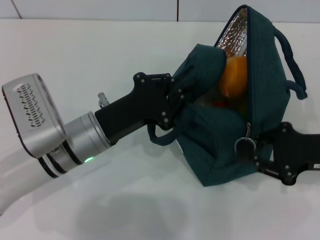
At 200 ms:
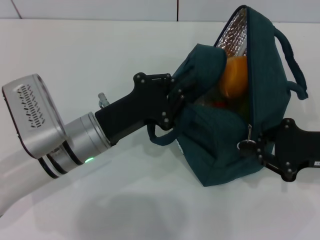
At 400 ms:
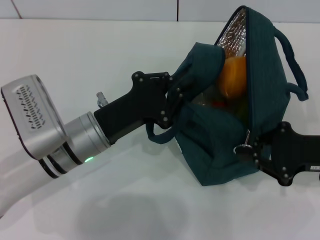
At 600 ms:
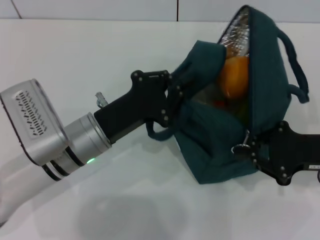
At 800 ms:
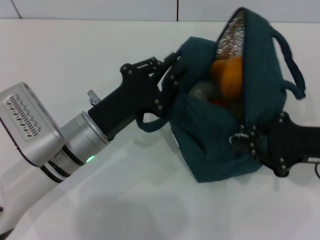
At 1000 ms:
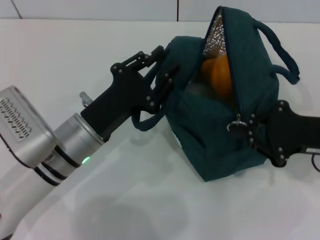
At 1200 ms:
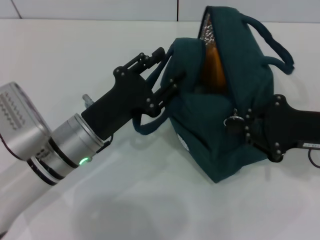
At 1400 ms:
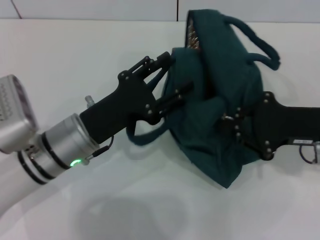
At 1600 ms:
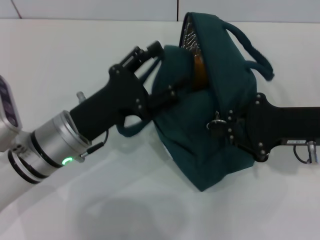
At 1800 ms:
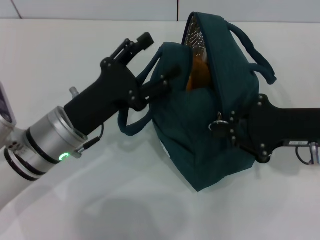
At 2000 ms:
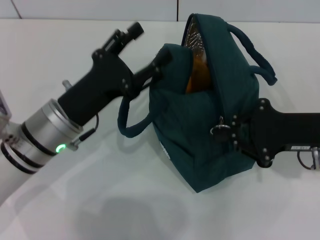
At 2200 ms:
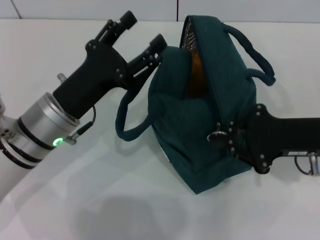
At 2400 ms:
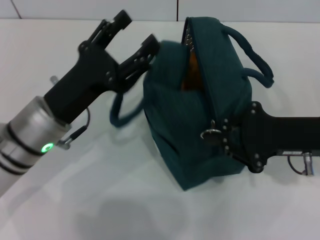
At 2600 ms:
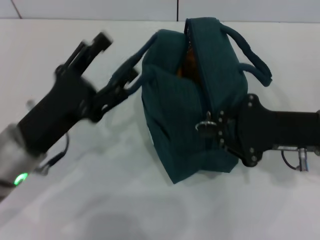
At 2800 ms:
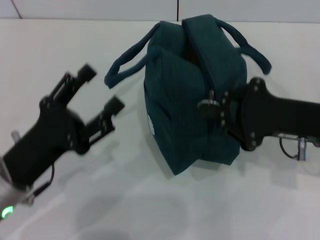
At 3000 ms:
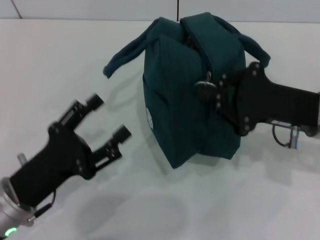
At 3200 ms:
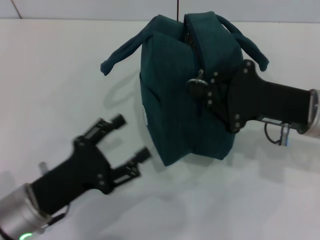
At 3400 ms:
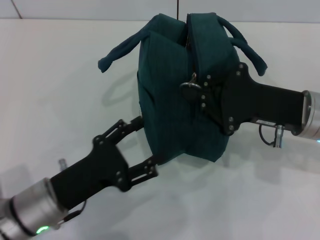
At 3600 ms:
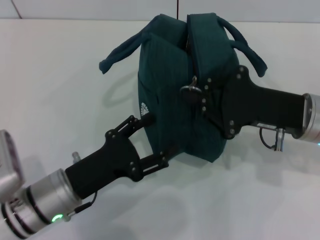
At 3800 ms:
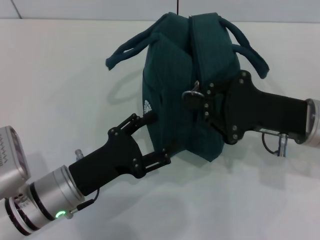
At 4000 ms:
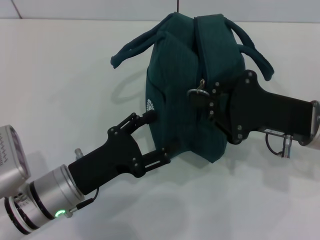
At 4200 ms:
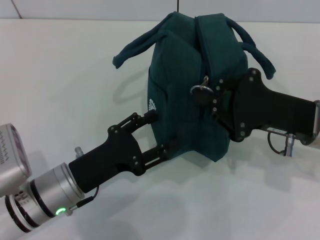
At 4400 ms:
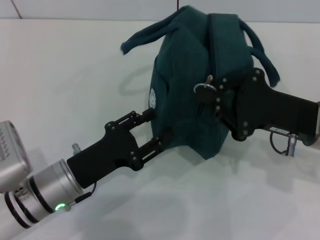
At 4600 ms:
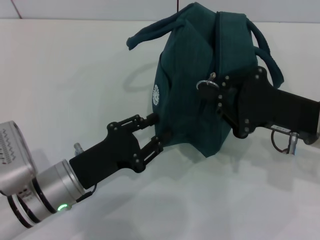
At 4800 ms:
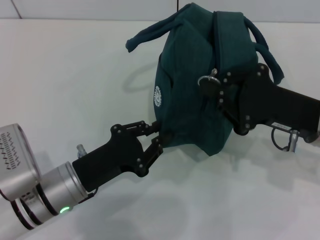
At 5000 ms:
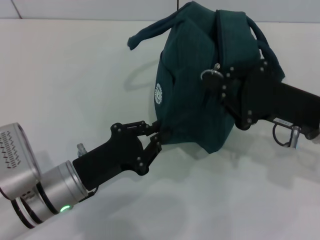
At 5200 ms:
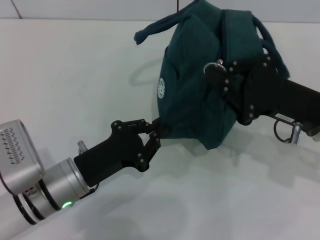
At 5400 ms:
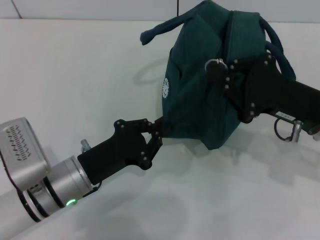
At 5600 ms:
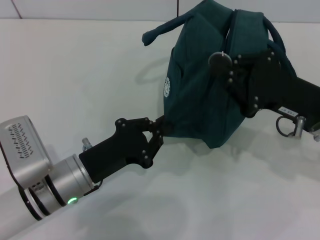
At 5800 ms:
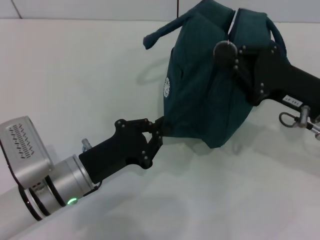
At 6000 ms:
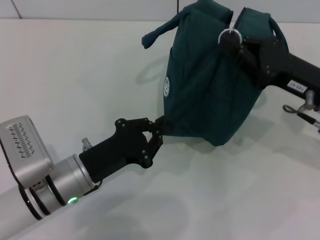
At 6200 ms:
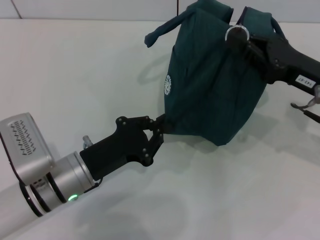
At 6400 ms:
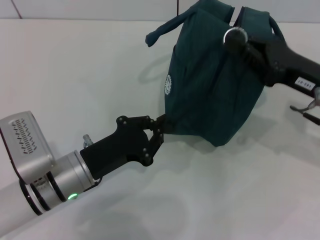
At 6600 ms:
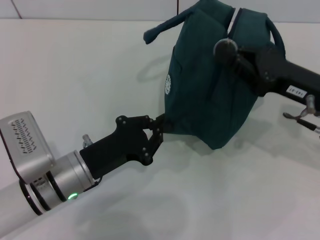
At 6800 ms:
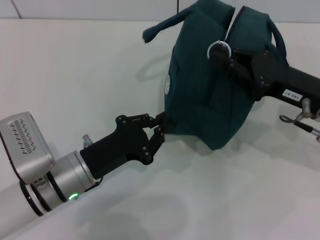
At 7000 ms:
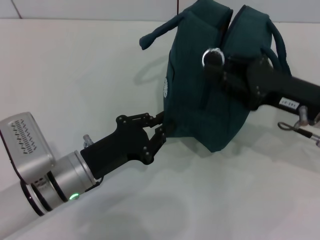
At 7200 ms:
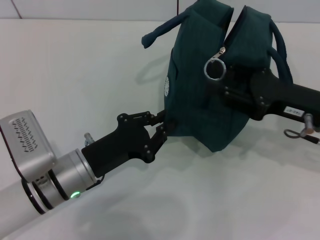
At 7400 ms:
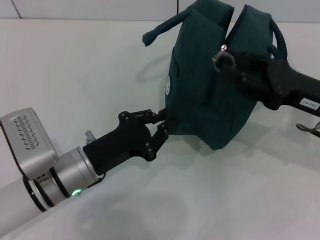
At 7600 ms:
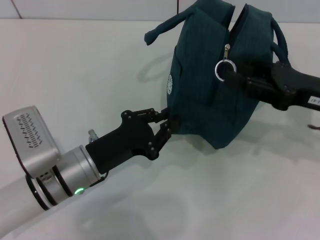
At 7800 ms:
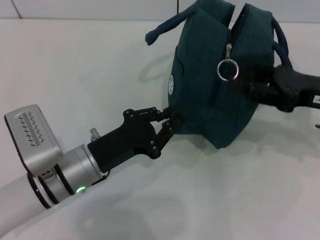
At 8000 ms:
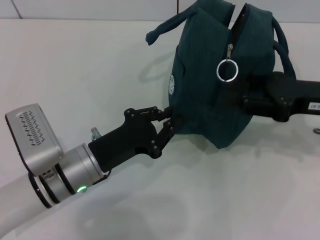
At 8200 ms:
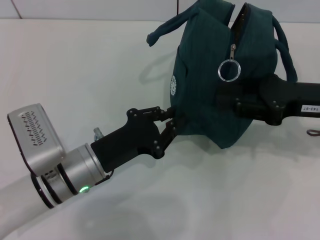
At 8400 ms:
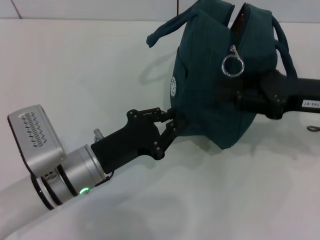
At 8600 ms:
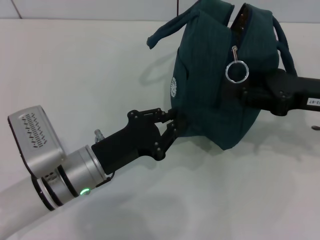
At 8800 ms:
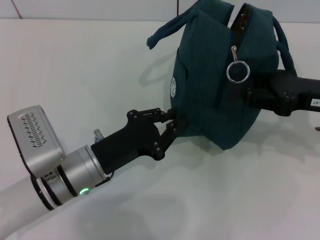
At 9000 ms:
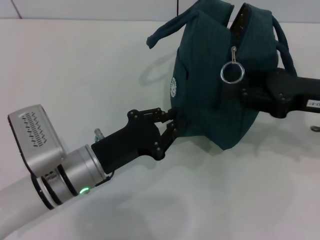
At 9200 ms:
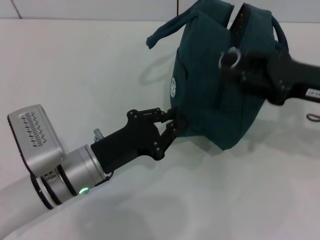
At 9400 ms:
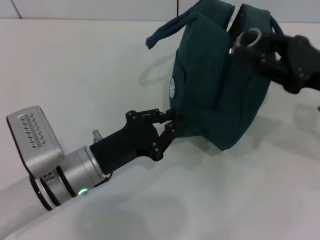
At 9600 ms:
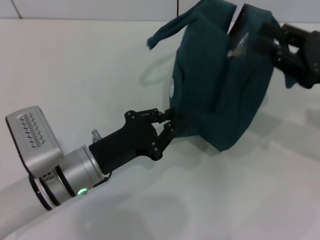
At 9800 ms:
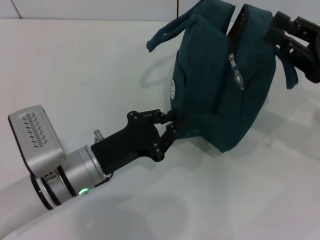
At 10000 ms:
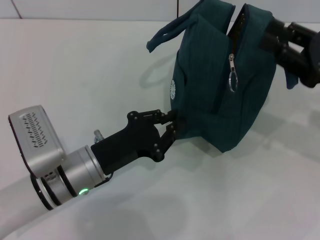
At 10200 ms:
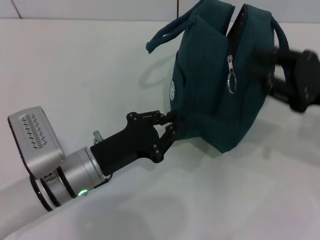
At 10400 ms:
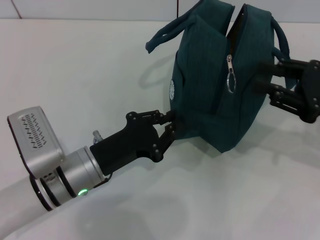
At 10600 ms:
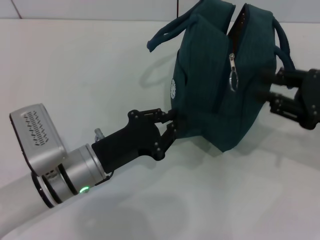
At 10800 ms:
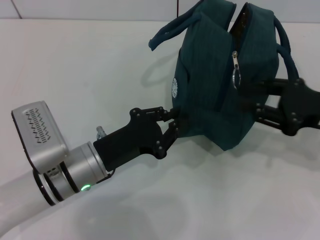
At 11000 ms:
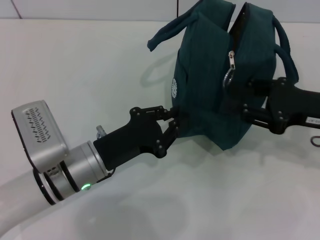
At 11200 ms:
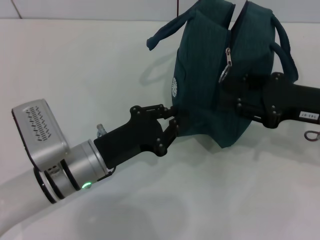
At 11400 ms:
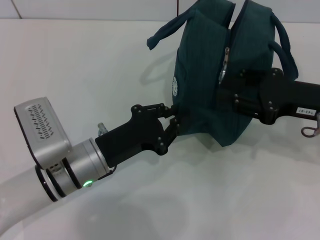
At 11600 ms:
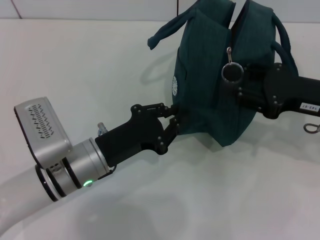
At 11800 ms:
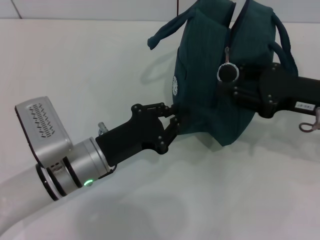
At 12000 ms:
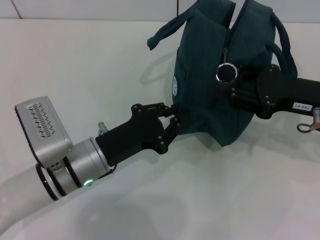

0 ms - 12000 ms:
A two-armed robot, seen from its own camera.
0 ms - 1600 ms: The right gripper closes up; the left gripper opens up.
1600 ms - 3000 ms: The left gripper shifts approximately 10 cm backward and to the left.
3000 ms - 4400 ms: The left gripper changes place by approximately 5 cm.
4400 ms - 6000 ms: The left gripper closes its fingers.
6000 ms - 7600 ms: The right gripper opens.
7600 ms - 9000 ms: There are only small adjustments of the grippers.
10400 ms - 12000 ms: The right gripper changes place by roughly 5 cm.

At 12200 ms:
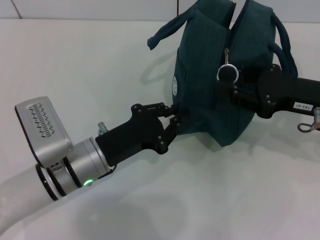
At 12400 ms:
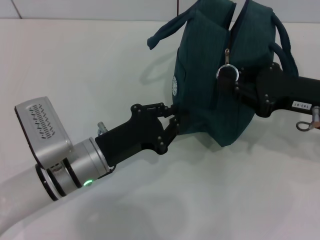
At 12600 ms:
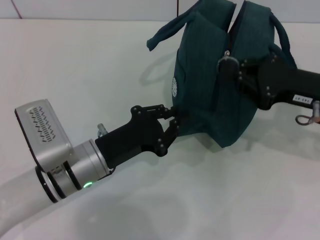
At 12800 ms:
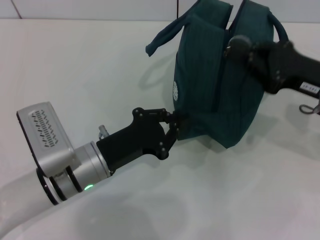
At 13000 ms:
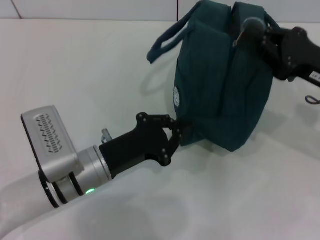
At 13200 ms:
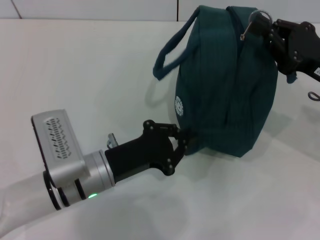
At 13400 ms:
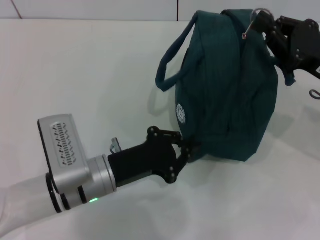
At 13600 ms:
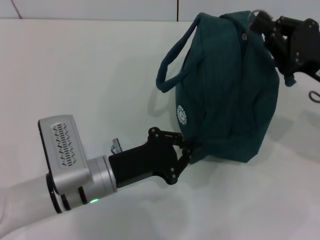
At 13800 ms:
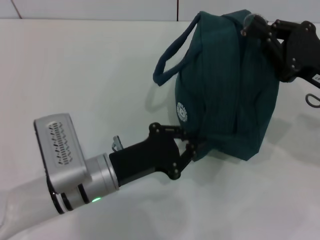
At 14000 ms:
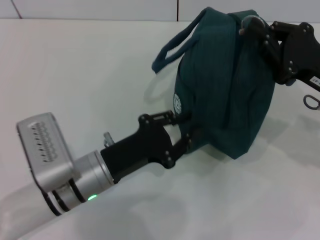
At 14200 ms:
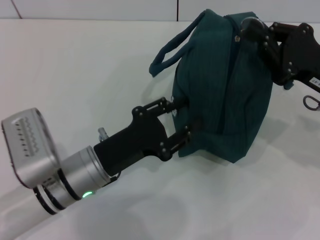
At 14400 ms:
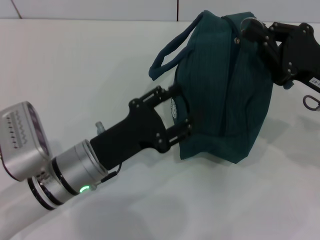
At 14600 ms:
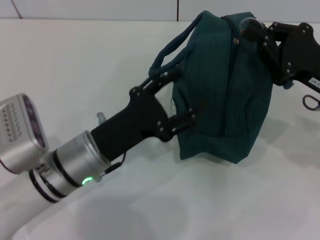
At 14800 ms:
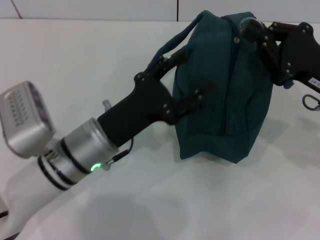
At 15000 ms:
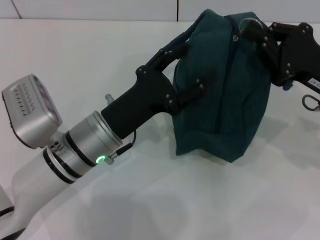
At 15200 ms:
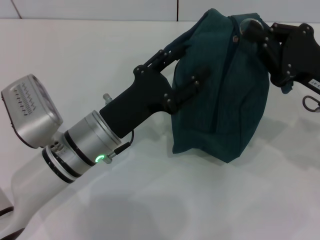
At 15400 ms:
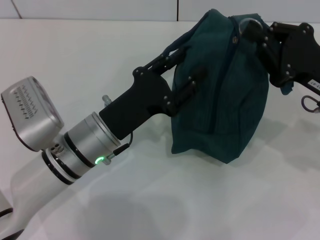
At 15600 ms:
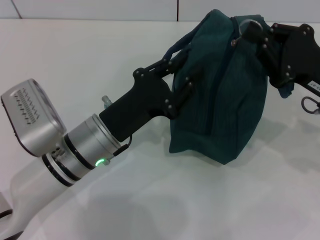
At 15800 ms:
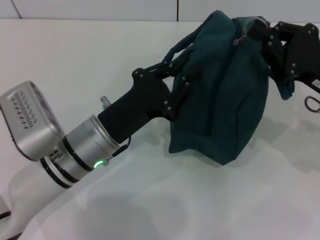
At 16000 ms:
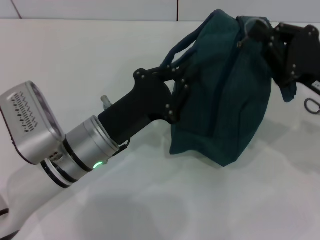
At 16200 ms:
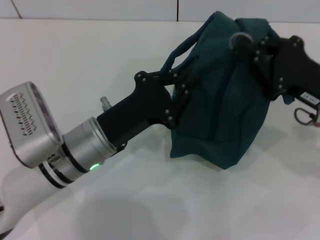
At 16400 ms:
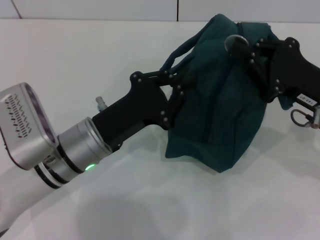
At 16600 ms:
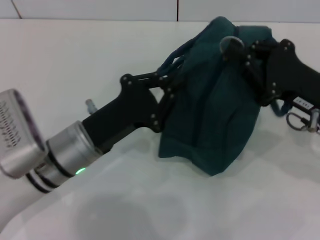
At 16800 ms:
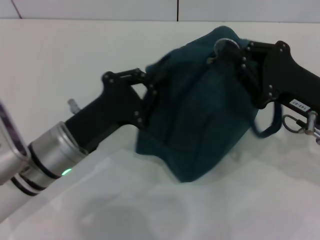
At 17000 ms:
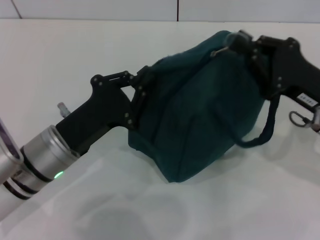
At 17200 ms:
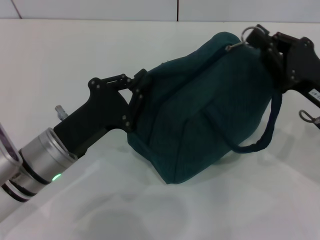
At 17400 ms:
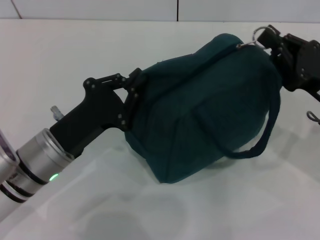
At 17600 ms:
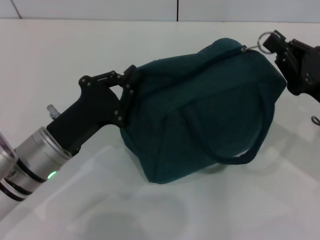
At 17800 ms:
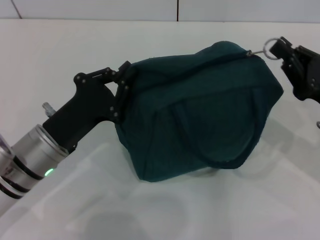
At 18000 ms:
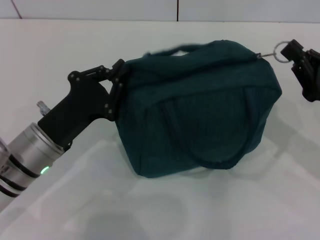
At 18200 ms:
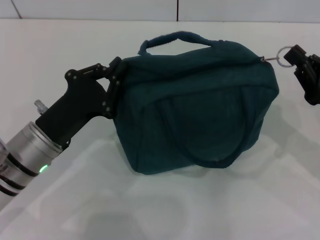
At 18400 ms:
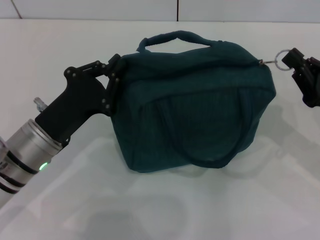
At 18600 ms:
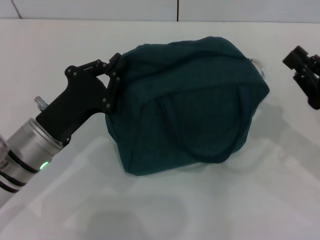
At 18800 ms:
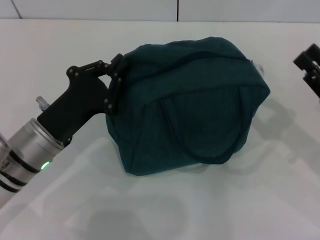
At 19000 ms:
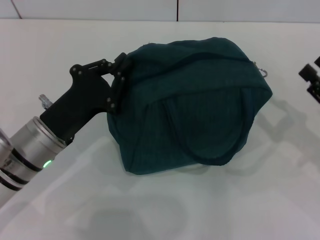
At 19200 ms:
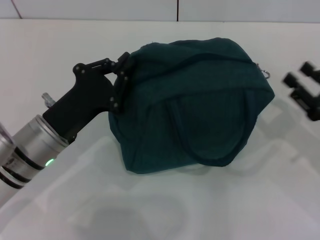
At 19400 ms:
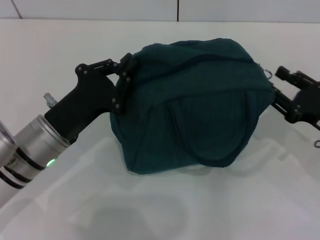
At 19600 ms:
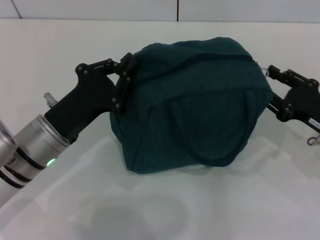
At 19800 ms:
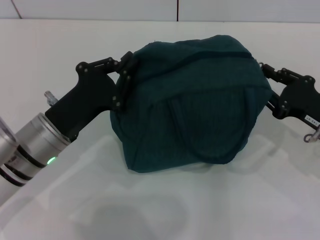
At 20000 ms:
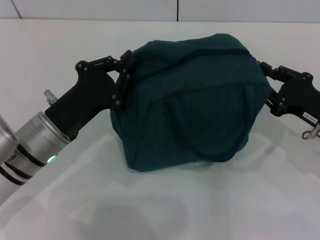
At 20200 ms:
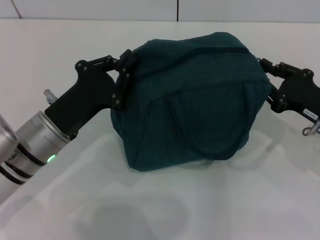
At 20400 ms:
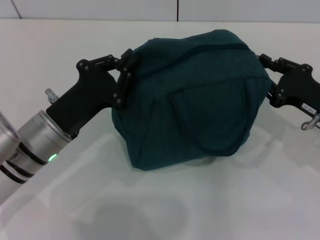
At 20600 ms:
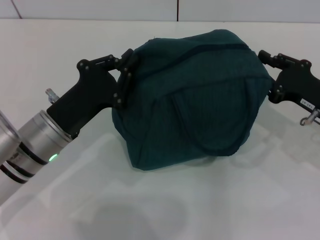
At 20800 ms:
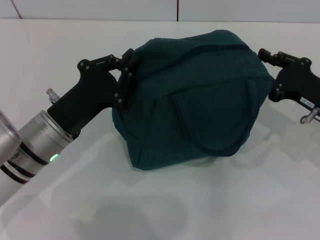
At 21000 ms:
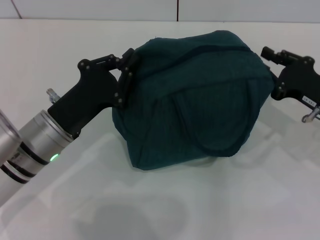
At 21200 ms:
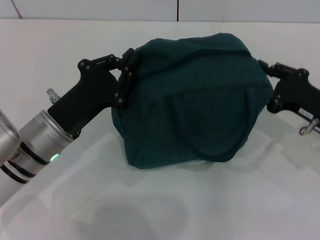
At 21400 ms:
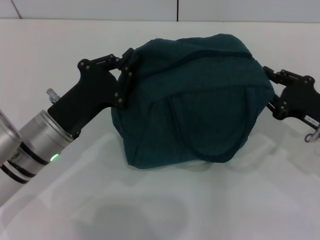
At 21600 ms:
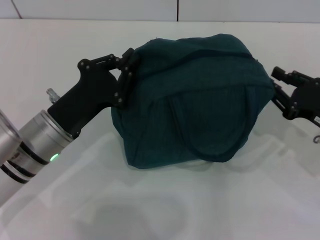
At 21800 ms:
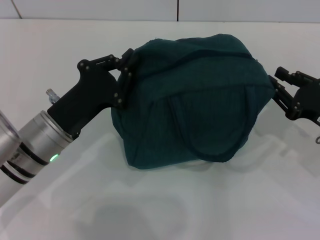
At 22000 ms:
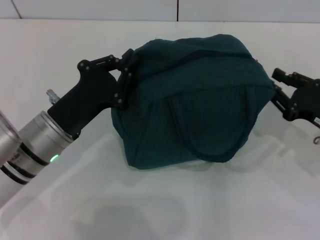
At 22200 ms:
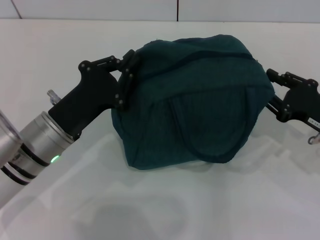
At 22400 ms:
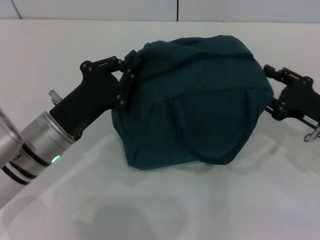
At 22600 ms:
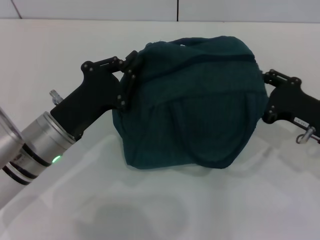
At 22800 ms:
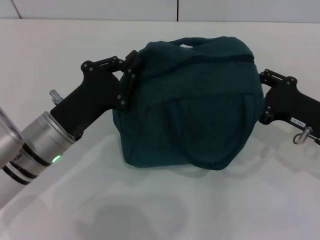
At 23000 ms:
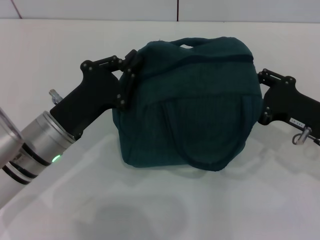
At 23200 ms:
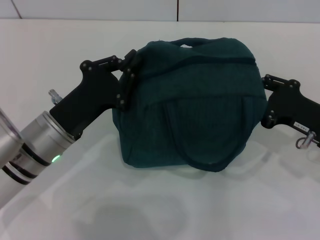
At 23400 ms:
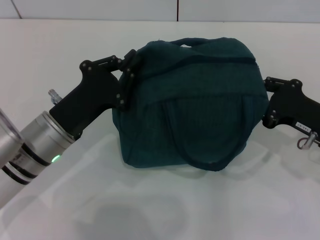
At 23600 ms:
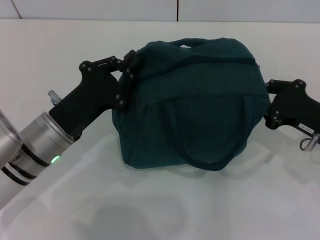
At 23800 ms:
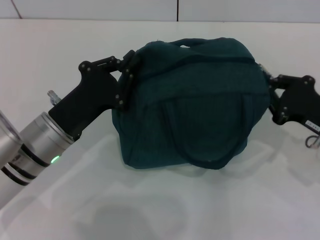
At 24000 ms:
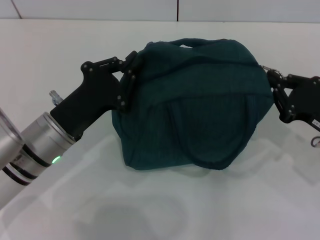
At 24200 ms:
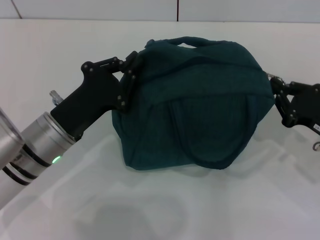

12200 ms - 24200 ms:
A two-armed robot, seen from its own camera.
13800 ms - 15200 ms: The left gripper opens up.
15200 ms - 16600 ms: The left gripper closes its fingers.
16600 ms - 18200 ms: The right gripper is displaced to the right by some 5 cm. Meanwhile the left gripper shifts some 5 cm to the left.
18200 ms - 19800 ms: The right gripper opens.
19800 ms - 22600 ms: The grippers move only a little.
22600 ms - 24200 ms: The right gripper closes.
